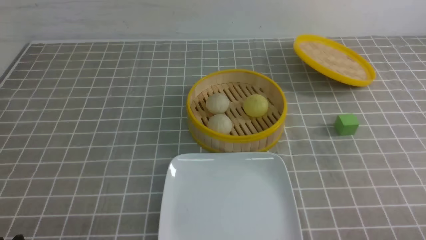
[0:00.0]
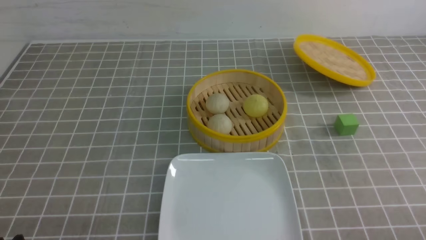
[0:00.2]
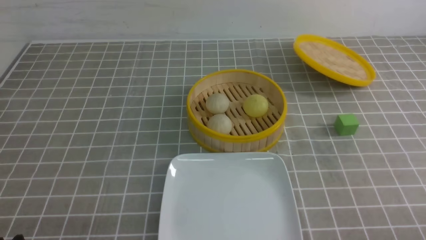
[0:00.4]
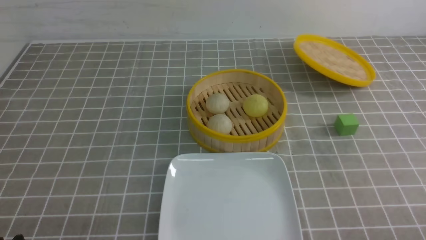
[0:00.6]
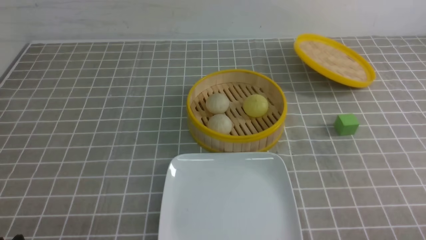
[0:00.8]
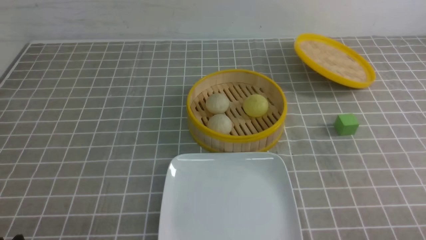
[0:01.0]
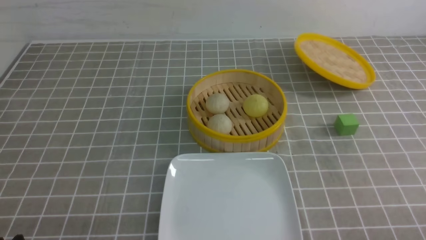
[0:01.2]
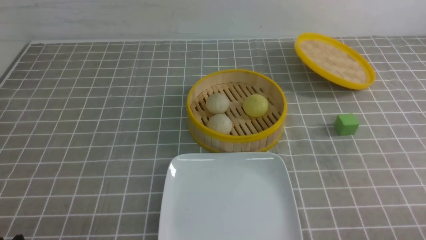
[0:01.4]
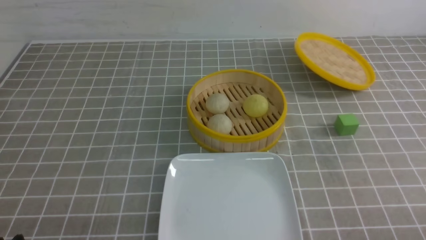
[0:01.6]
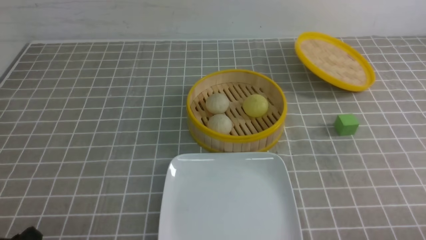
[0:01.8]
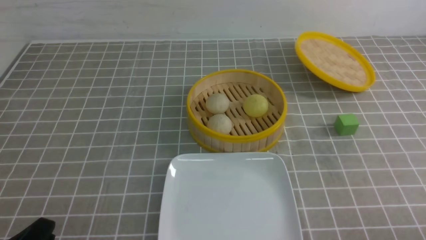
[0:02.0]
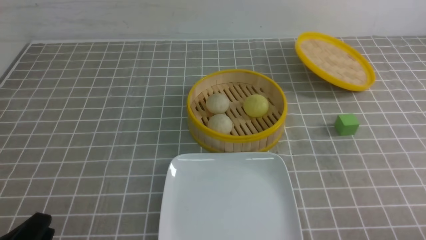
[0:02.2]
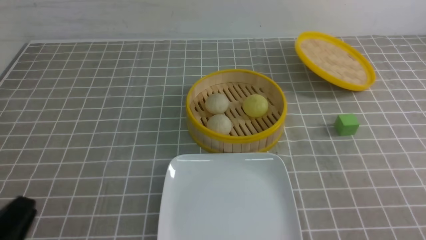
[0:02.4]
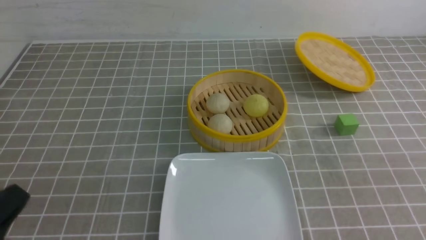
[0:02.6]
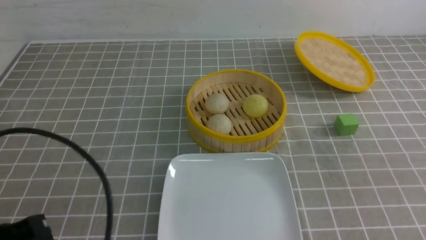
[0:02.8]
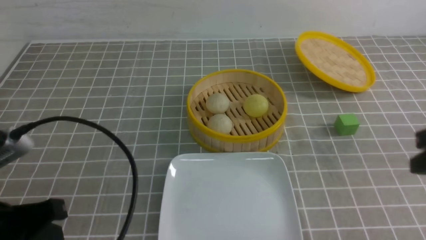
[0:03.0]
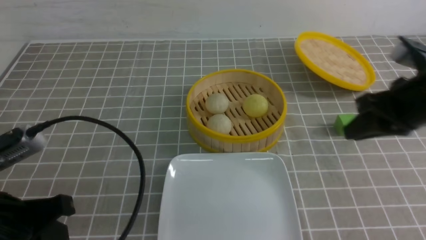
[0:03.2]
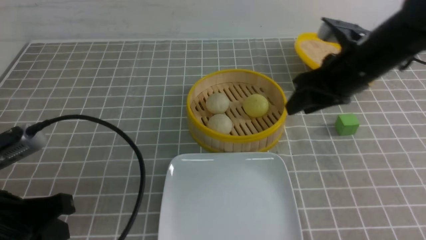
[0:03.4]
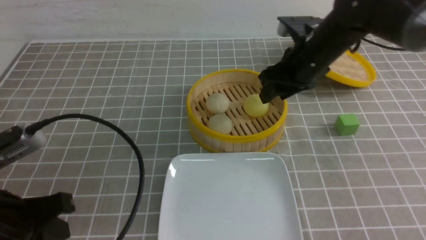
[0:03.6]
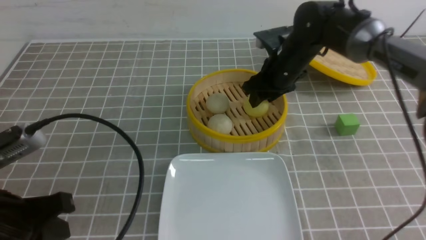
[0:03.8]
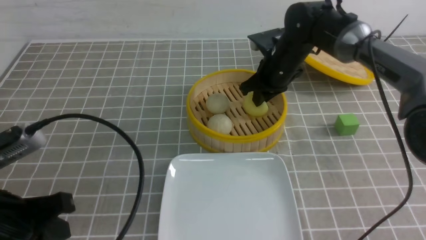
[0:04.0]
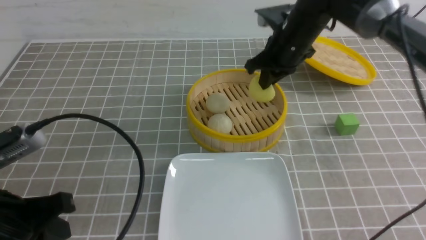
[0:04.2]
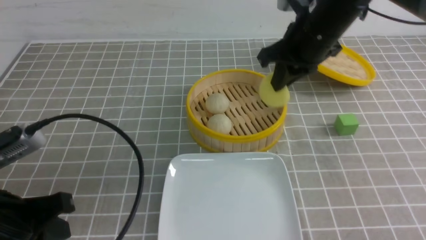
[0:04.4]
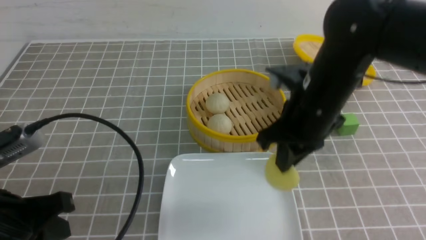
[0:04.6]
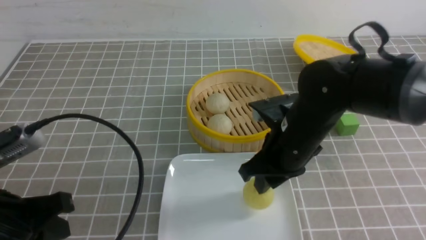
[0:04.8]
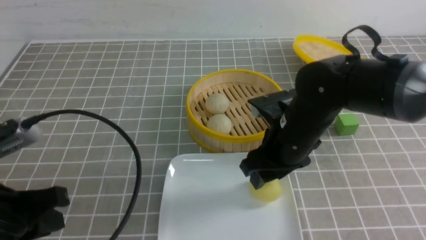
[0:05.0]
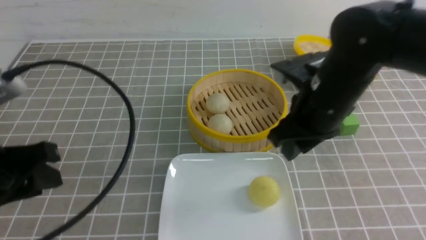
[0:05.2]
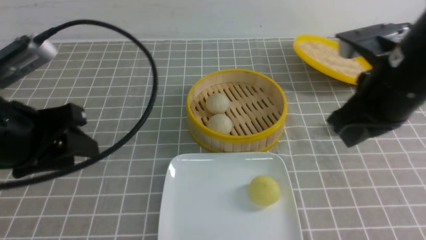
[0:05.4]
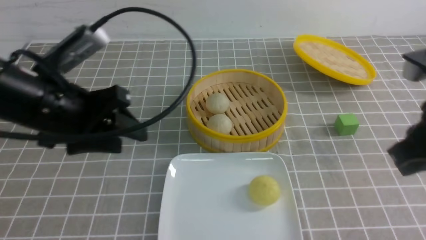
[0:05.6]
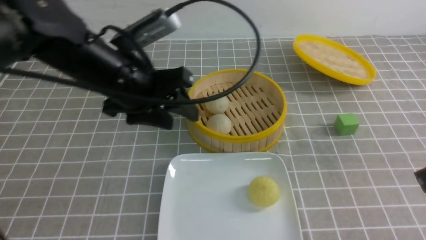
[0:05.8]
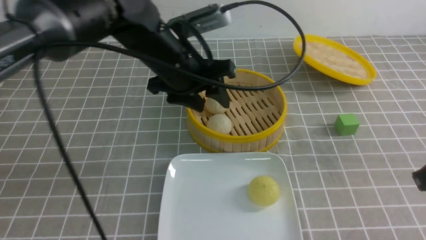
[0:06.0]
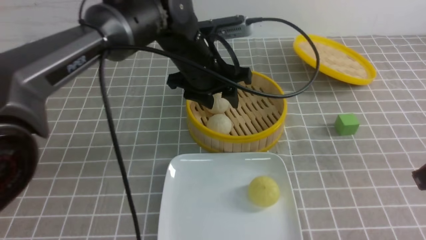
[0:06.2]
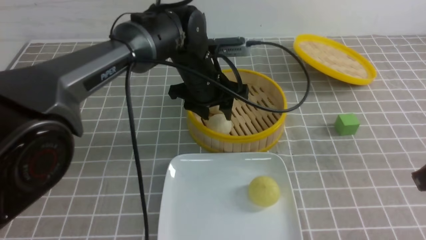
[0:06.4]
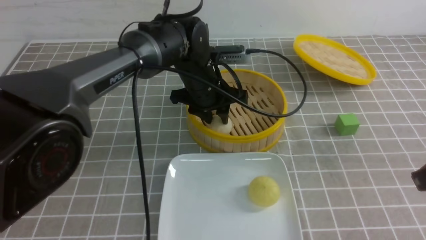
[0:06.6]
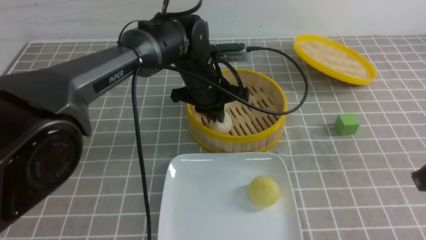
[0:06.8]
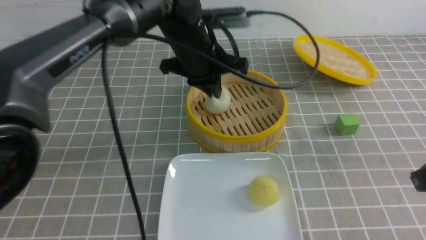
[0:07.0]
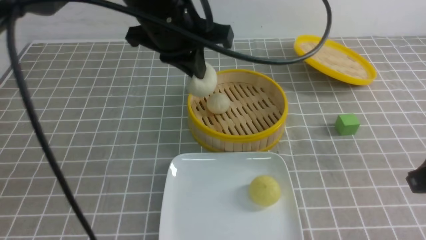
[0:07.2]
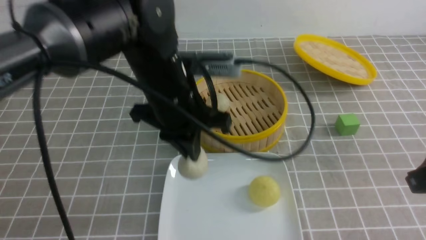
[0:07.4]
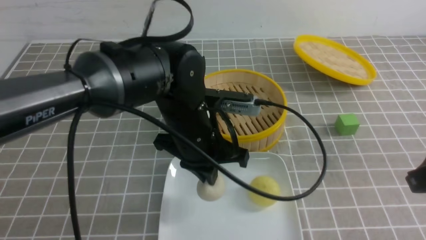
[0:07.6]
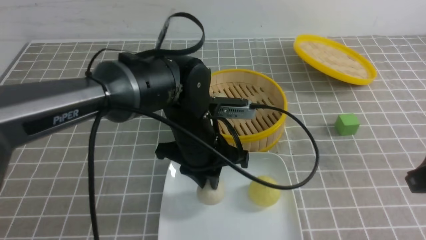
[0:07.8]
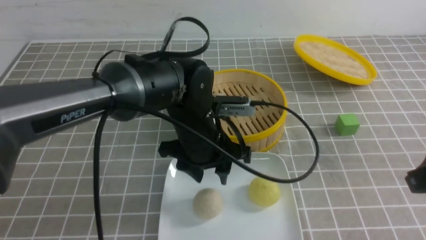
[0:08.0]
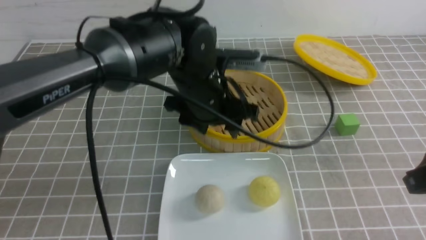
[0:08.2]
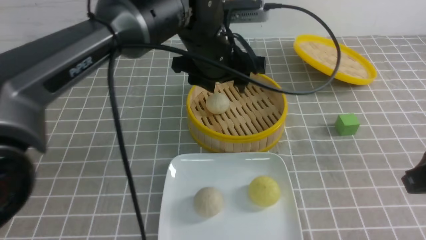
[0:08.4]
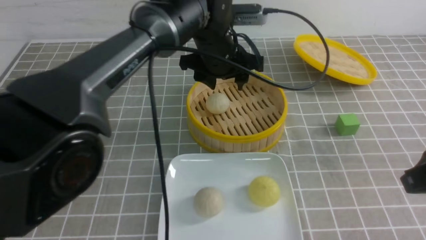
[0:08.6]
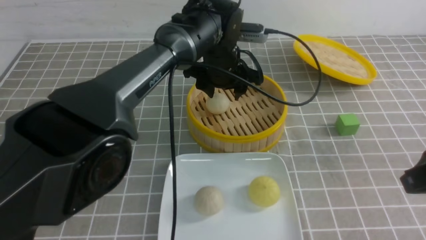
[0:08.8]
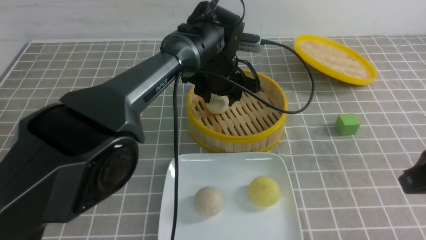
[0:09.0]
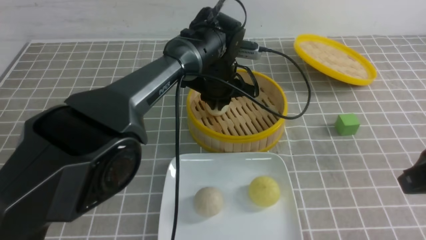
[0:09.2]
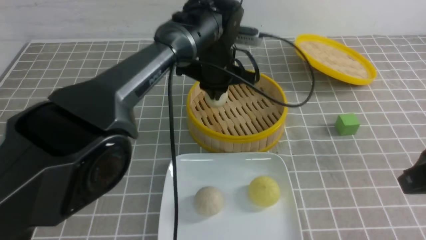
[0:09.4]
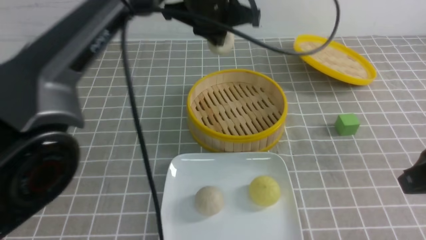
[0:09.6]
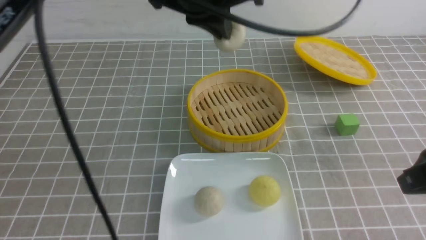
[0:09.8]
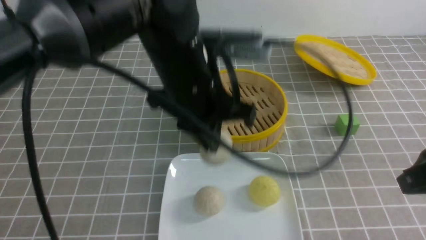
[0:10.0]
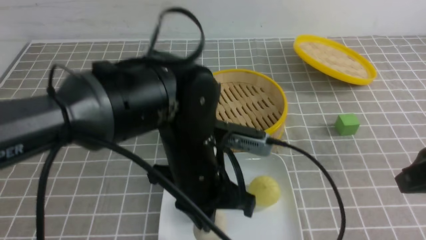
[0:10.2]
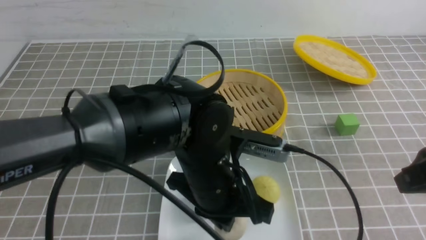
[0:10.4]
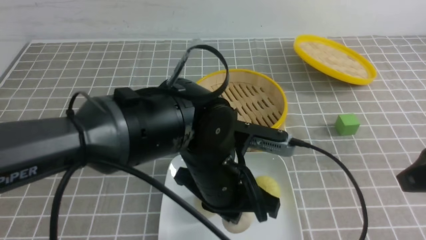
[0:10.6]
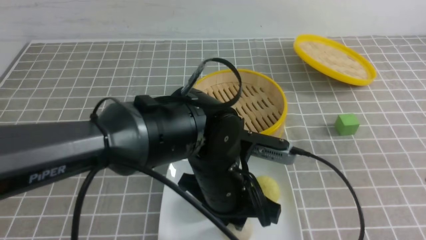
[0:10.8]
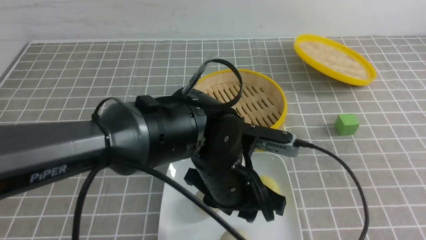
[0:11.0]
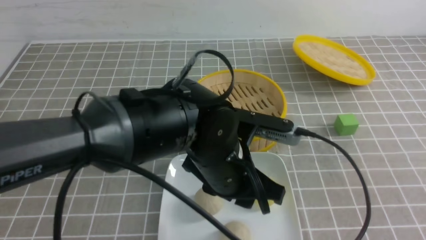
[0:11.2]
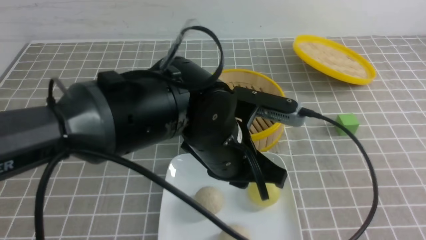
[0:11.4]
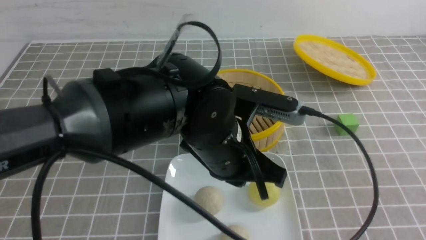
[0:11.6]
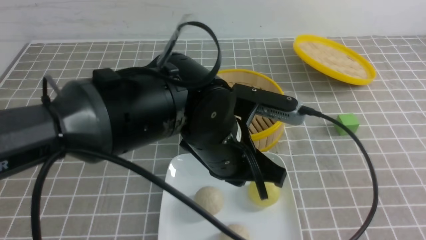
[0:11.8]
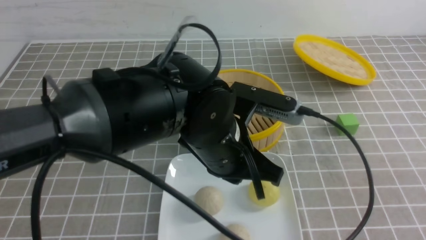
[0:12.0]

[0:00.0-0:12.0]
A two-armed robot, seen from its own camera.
Step, 0:00.0 to 0:04.0: use the right arm to grab the steamed stuffed bun that is closest to it.
Step, 0:04.2 to 0:05.0: use the right arm to put the steamed stuffed bun into the plate.
Step, 0:05.2 to 0:06.8: use the left arm to grab the steamed stuffed bun that is closest to it.
Step, 0:07.0 to 0:07.8: use the left arm to put the steamed stuffed bun into the plate.
Step, 0:08.0 to 0:09.2: use the left arm to grab the steamed stuffed bun that is closest to it.
Step, 0:09.6 to 0:10.8: use the left arm to put the steamed stuffed bun into the plate.
0:01.6 to 0:03.0: The right gripper shifts some 20 cm forward and upward, and closes. The left gripper moves upward and forward, some 10 cm, and closes up.
0:03.0 to 0:04.4: The right gripper travels to the left and forward by some 25 cm, and opens and closes again.
0:04.4 to 0:06.0: The left gripper goes some 30 cm forward and to the right, and opens up; the right gripper goes about 25 cm backward and to the right, and opens and closes again.
0:06.0 to 0:07.6: The left gripper goes about 10 cm backward and downward, and closes.
0:07.6 to 0:09.0: The left gripper goes roughly 15 cm forward, and opens up.
0:09.0 to 0:10.4: The left gripper heads backward, covering about 25 cm, and closes its fingers.
0:10.4 to 0:12.0: The left gripper opens and closes again; the right gripper goes about 15 cm backward and to the right.

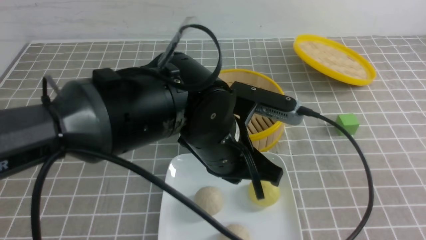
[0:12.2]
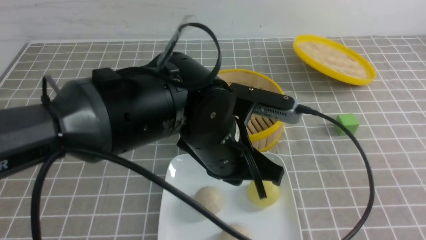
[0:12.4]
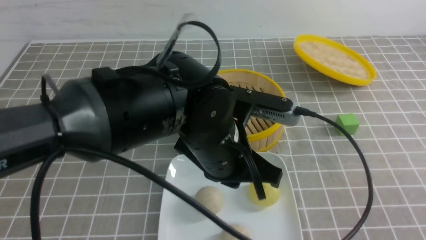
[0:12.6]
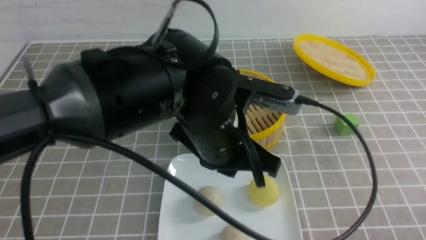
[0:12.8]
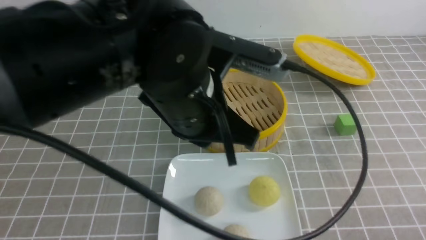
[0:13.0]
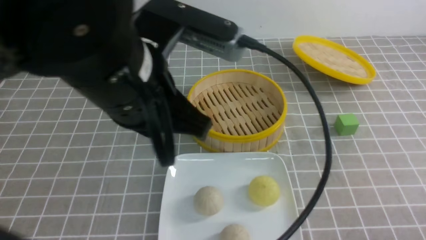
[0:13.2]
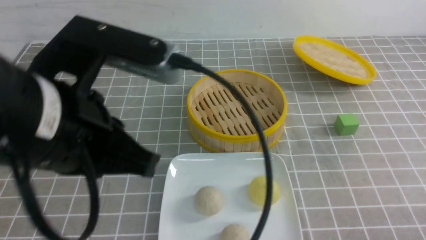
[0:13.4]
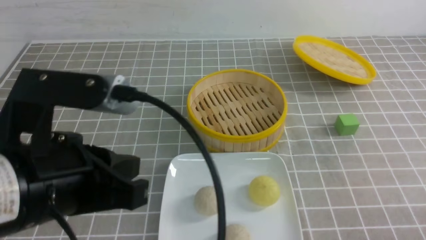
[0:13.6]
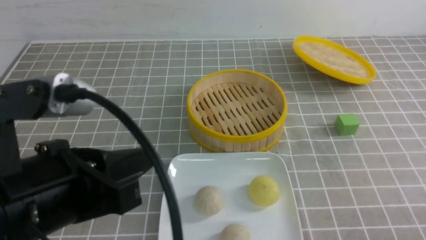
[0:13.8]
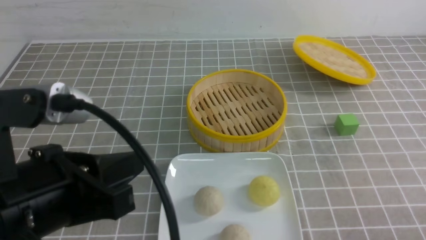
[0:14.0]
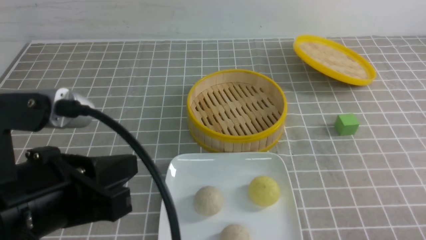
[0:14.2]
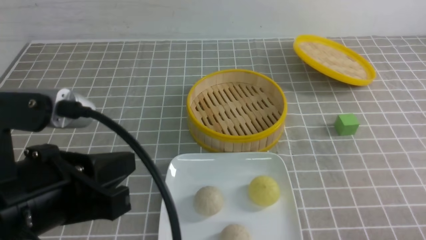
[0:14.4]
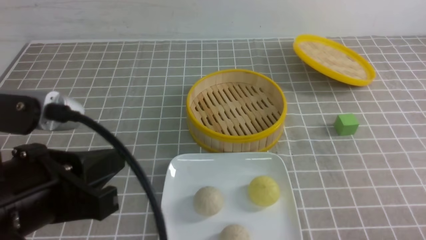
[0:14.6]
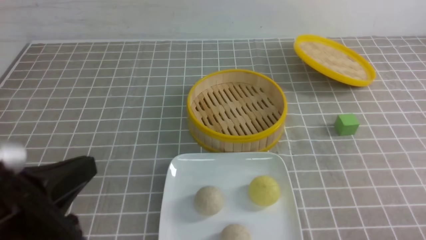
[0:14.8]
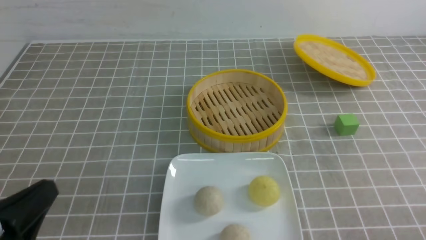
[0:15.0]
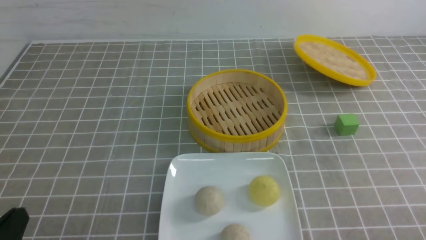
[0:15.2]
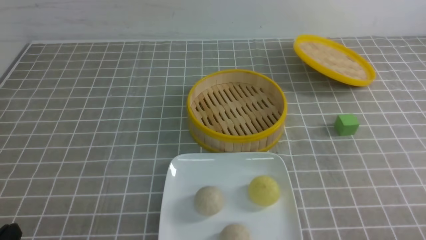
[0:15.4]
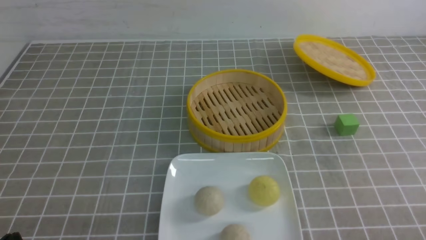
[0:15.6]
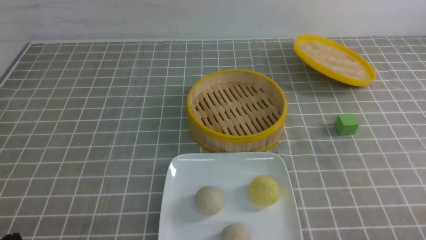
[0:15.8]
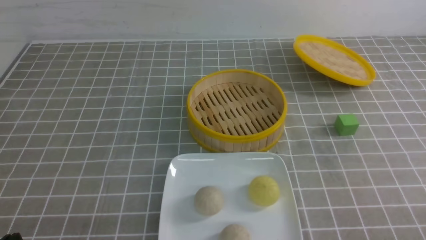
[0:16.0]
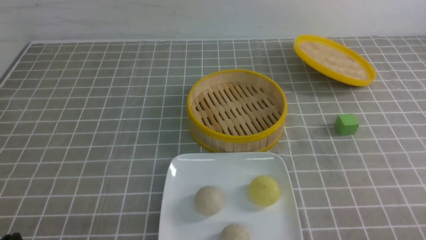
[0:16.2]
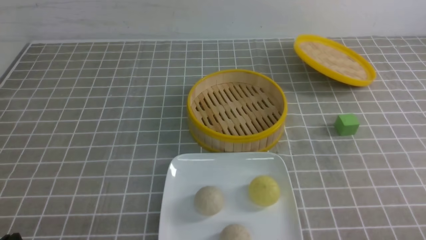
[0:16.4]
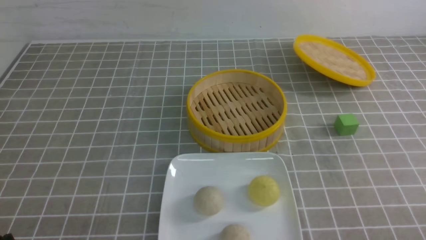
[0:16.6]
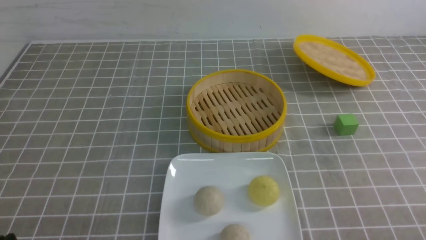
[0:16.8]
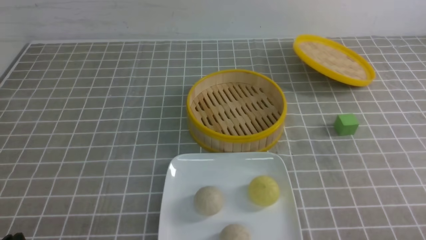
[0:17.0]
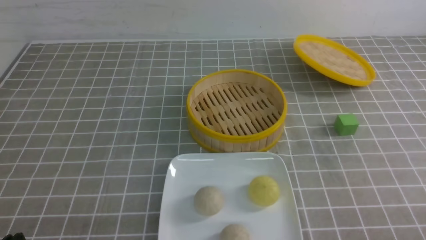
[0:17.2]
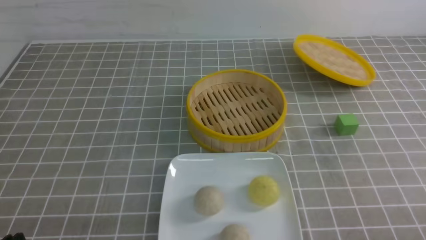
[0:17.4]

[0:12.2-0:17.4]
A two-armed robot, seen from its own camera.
0:12.2 to 0:14.0: The left gripper goes roughly 20 cm to the left and backward, while the right gripper shifts some 10 cm downward.
0:14.0 to 0:15.6: The left gripper heads downward and to the left, covering some 20 cm.
0:15.6 to 0:17.4: Both grippers stay about where they are.
